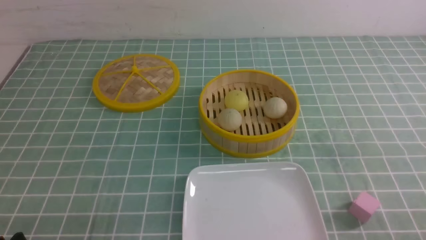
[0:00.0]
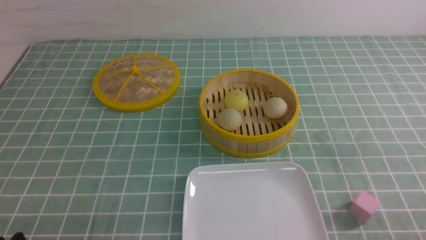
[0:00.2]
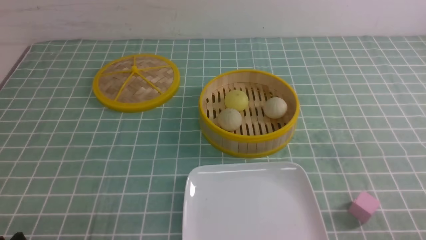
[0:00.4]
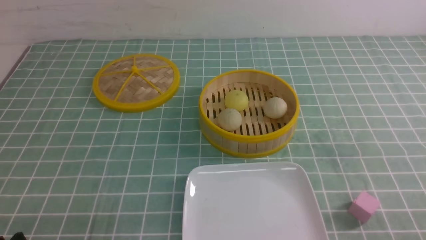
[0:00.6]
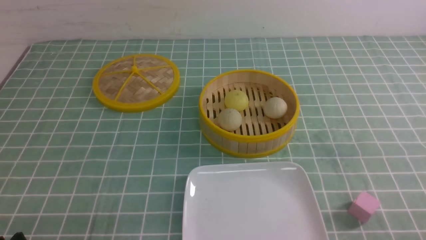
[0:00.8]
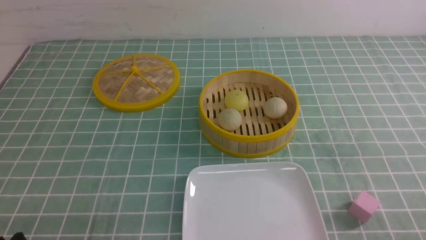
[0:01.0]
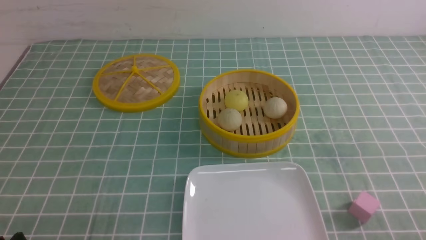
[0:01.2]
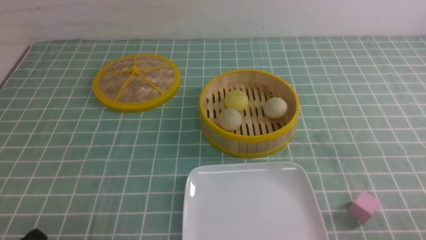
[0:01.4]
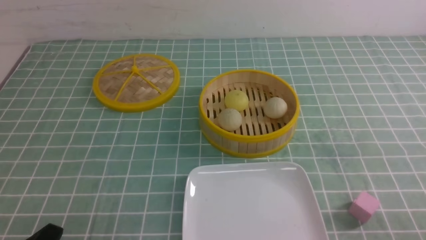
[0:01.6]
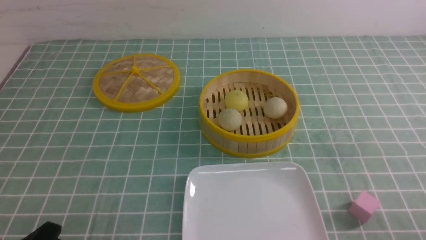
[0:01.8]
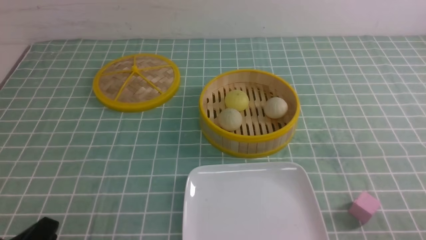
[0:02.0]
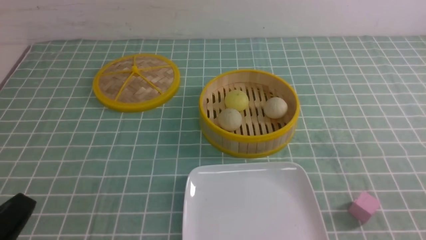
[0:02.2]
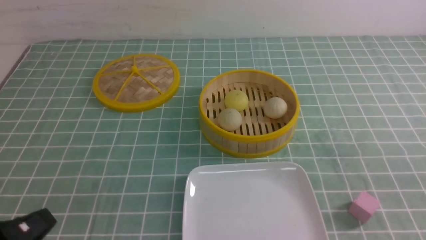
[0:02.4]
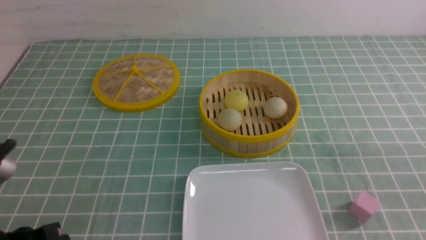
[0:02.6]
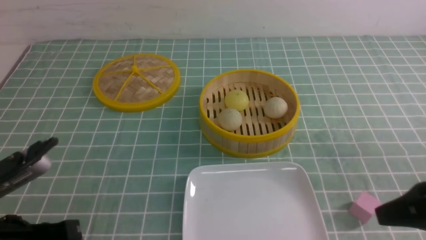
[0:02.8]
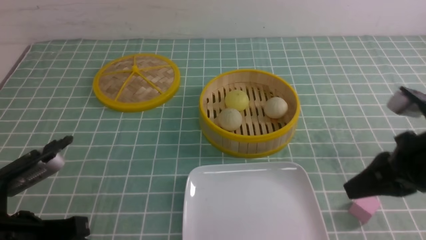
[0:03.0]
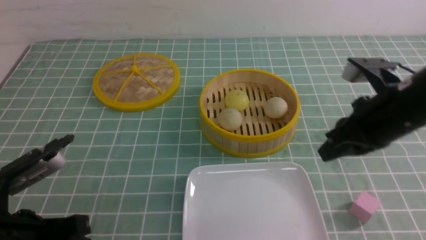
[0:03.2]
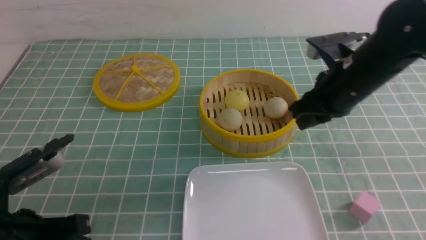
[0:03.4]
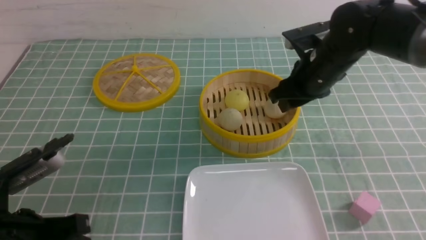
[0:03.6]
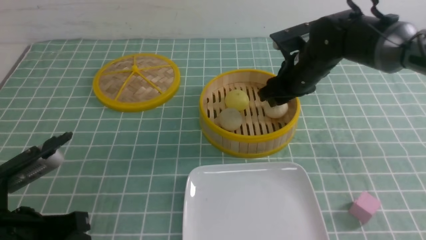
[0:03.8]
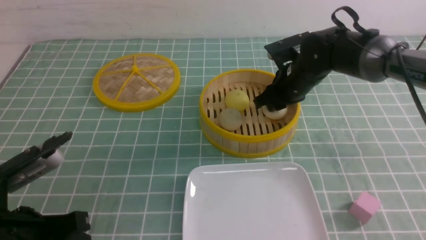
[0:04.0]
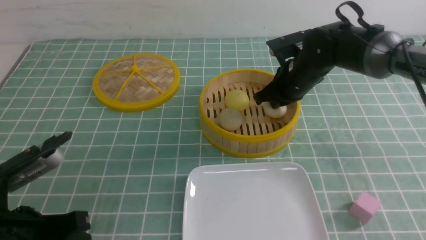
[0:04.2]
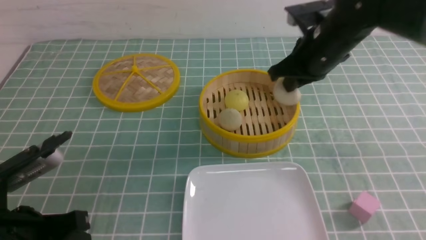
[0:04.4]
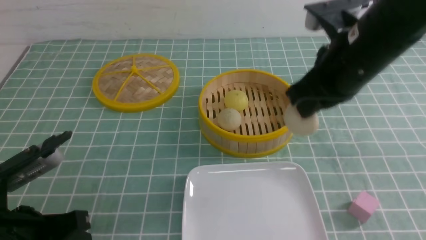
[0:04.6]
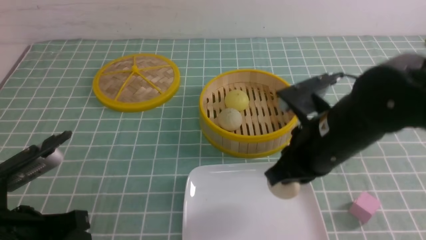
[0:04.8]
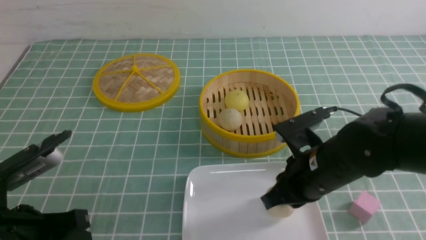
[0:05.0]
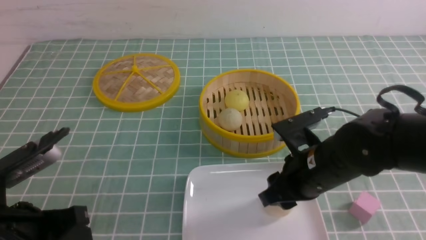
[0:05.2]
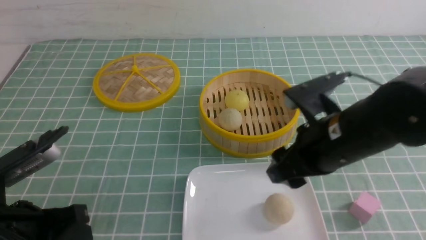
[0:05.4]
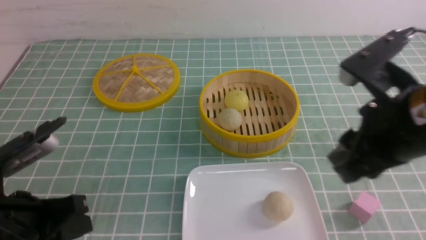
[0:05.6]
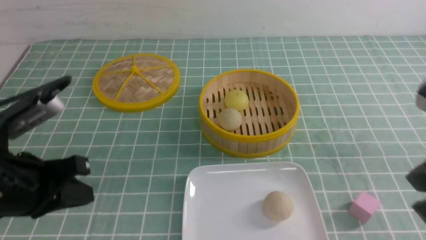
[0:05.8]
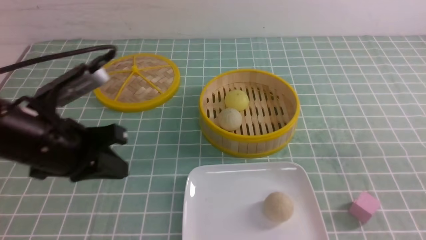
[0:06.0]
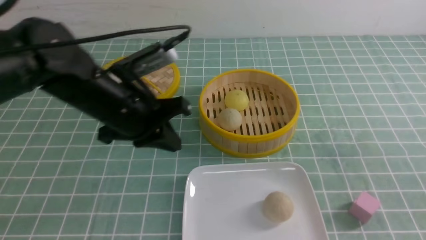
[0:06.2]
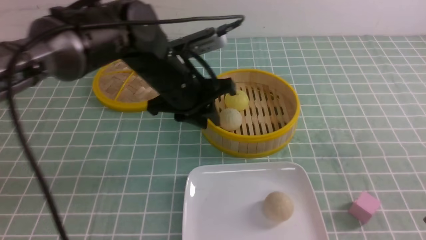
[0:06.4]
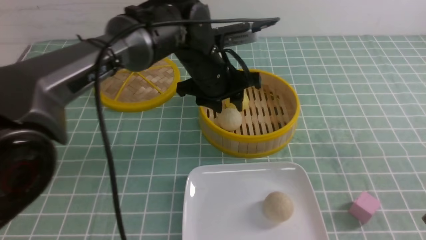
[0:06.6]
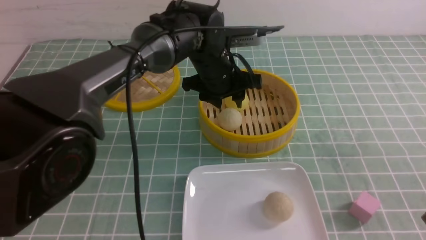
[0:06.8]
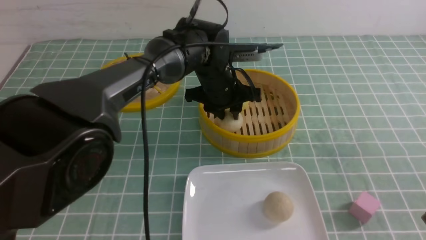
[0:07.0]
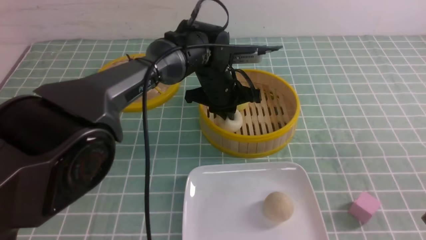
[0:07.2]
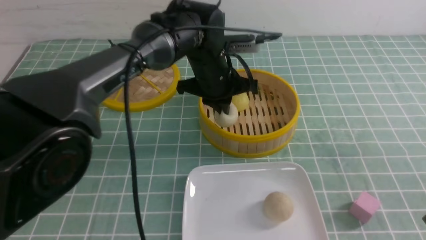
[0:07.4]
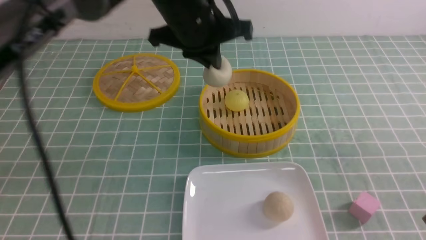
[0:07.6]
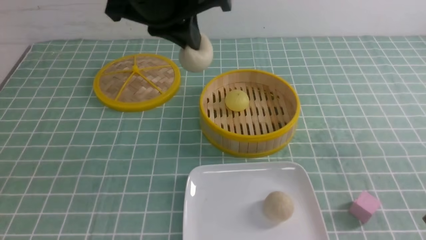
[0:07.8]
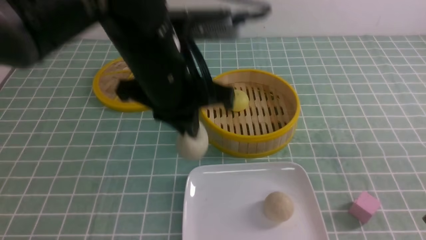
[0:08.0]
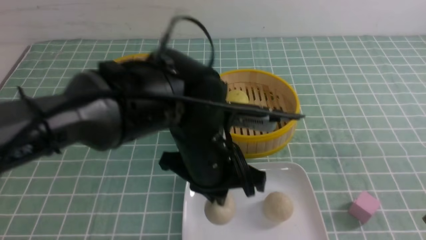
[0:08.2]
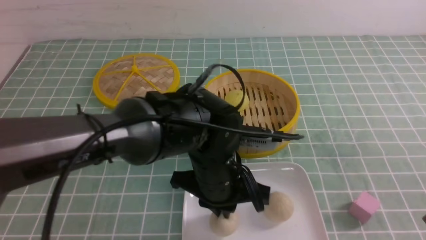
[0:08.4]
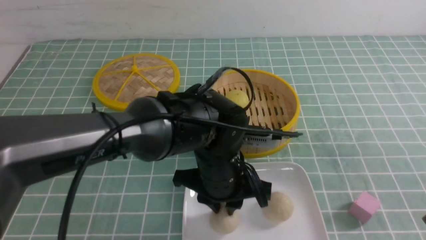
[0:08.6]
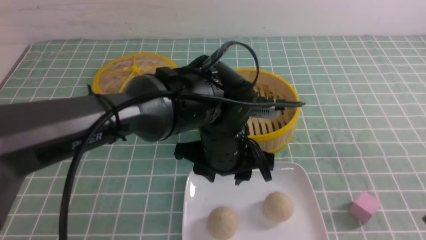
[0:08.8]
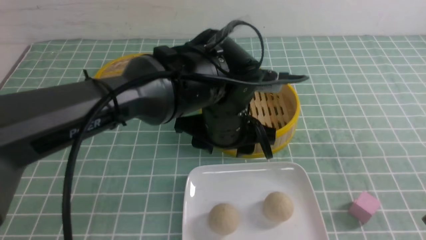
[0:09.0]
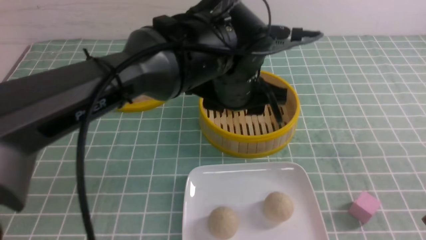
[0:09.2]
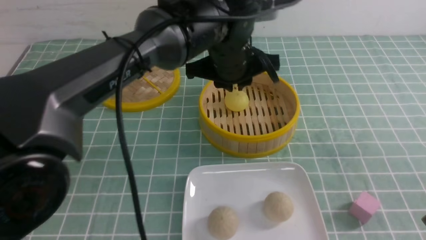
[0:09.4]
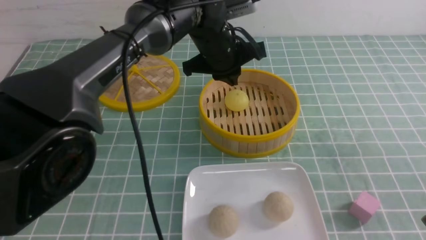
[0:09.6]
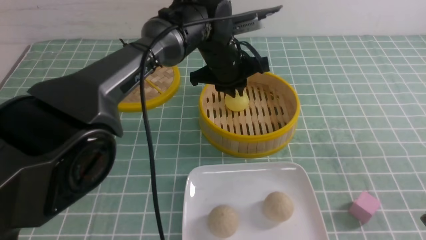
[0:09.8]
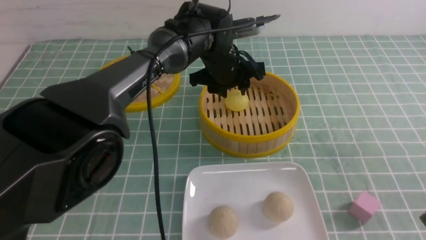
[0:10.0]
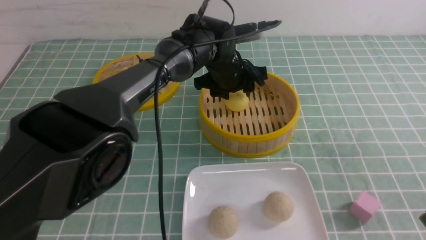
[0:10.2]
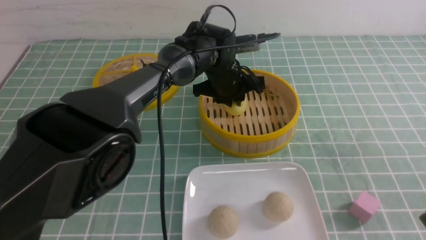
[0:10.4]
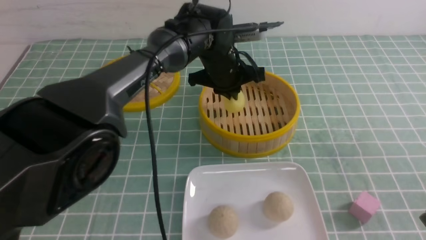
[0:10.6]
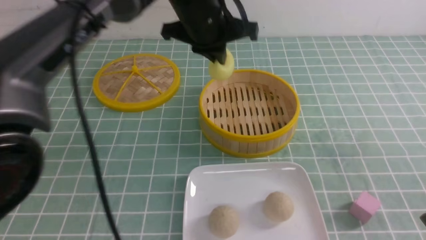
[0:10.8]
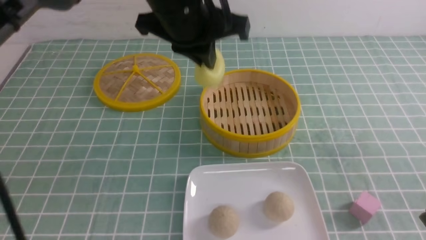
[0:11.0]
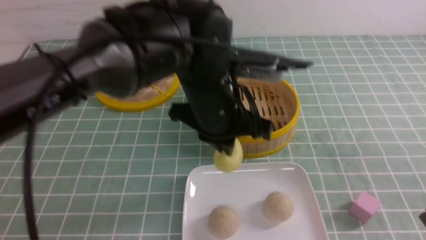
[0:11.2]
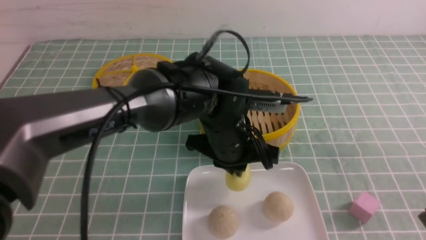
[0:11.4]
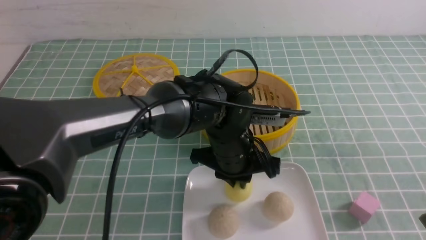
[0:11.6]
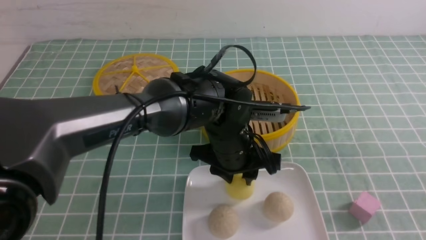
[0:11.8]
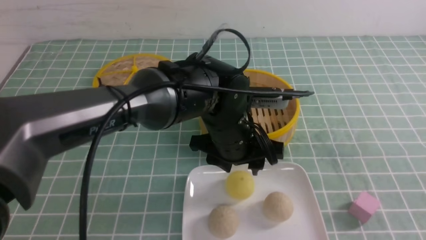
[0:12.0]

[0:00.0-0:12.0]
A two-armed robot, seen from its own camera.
Step, 0:00.0 to 0:04.2: use the right arm to grab the steamed stuffed bun that is closest to it.
Step, 0:04.4 to 0:05.4: use the right arm to put the steamed stuffed bun into the plate.
Step, 0:05.6 to 0:07.2: use the left arm to grab the steamed stuffed bun that is closest to it.
Step, 0:07.4 to 0:08.6: use the left arm to put the steamed stuffed bun into the plate.
Step, 0:08.8 to 0:10.4: use the left arm to grab the steamed stuffed bun that is closest to it.
Step, 0:10.6 to 0:11.8: use the left arm to put the steamed stuffed bun into the plate.
0:01.6 to 0:03.0: The right gripper is displaced forward, upward and to the left by approximately 20 cm, and closes up. Meanwhile the left gripper goes approximately 10 cm forward and upward, and closes up.
0:03.0 to 0:04.4: The right gripper goes approximately 20 cm forward and to the left, and opens and closes again.
0:04.4 to 0:06.0: The left gripper moves forward and upward, some 10 cm. Meanwhile the right gripper shifts about 25 cm backward and to the right, and opens and closes again.
0:06.0 to 0:07.6: The left gripper is displaced to the right, forward and upward by some 20 cm, and opens, then closes once more.
0:07.6 to 0:09.0: The left gripper travels downward, to the right and backward by some 15 cm, and opens up.
0:09.0 to 0:10.4: The left gripper travels forward by approximately 15 cm, and closes its fingers.
0:10.4 to 0:12.0: The right gripper goes some 5 cm backward and upward. Meanwhile the left gripper heads backward, covering some 15 cm, and opens up.

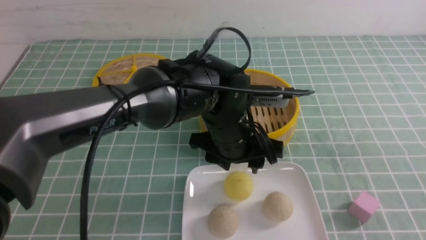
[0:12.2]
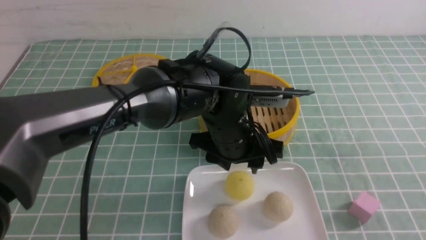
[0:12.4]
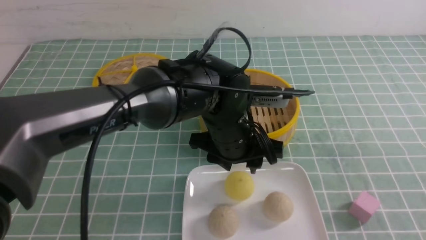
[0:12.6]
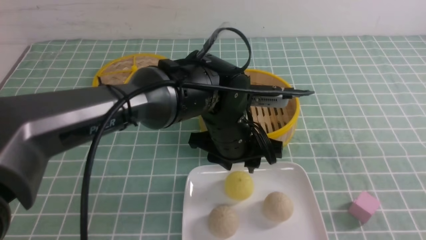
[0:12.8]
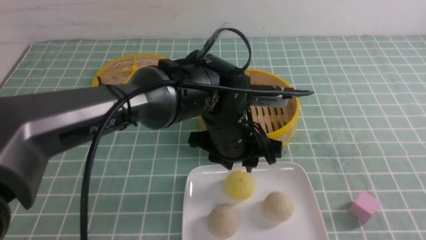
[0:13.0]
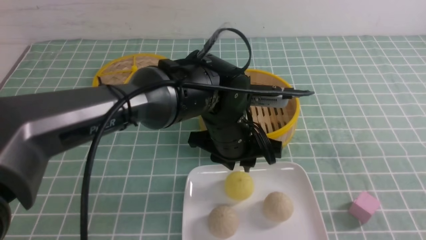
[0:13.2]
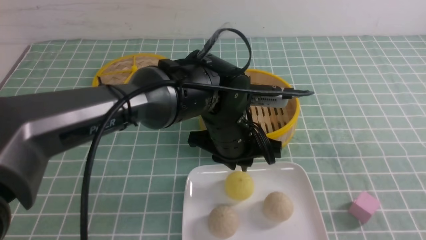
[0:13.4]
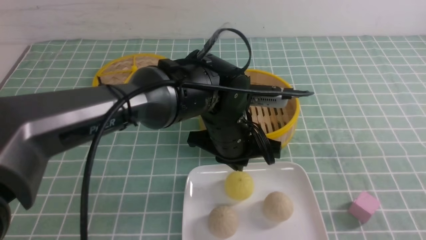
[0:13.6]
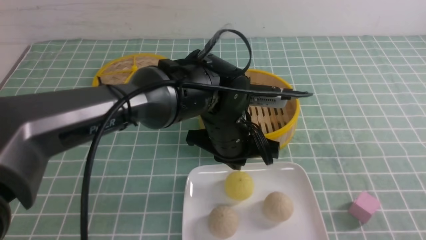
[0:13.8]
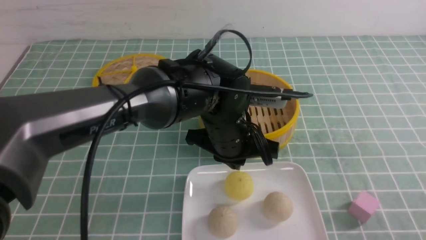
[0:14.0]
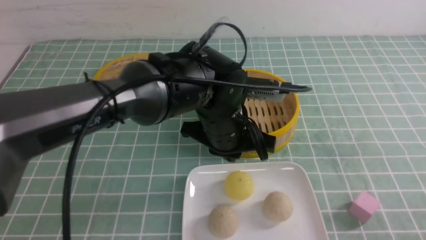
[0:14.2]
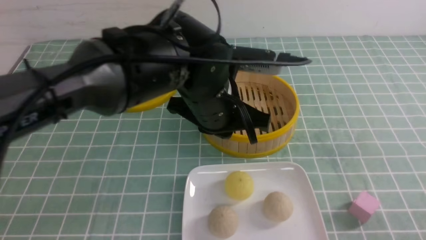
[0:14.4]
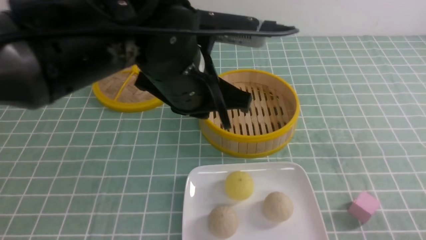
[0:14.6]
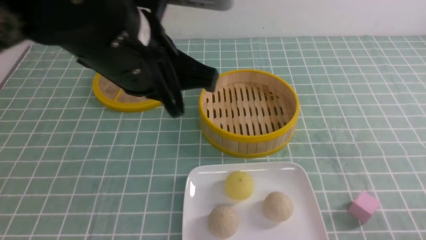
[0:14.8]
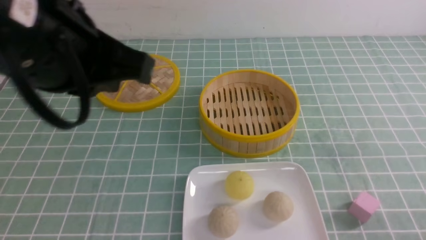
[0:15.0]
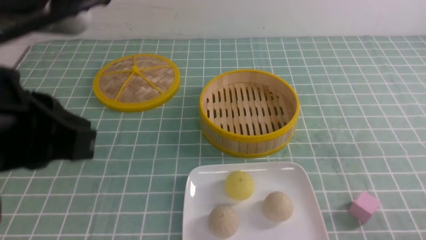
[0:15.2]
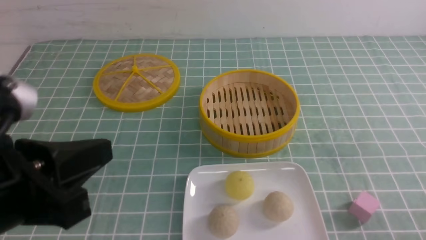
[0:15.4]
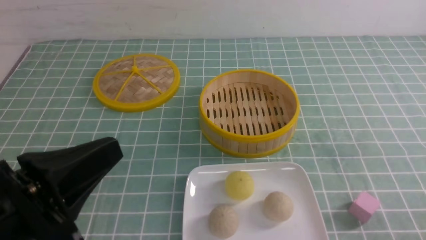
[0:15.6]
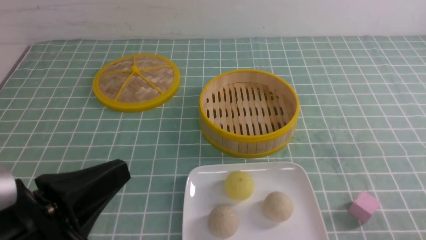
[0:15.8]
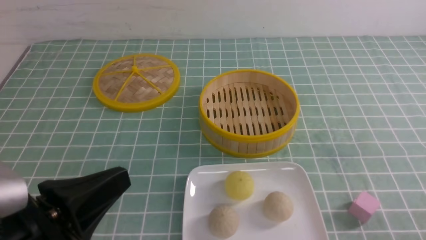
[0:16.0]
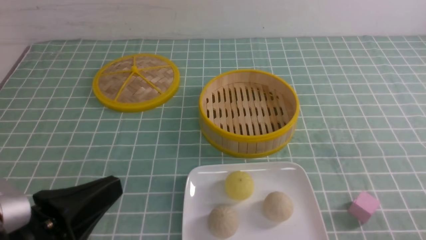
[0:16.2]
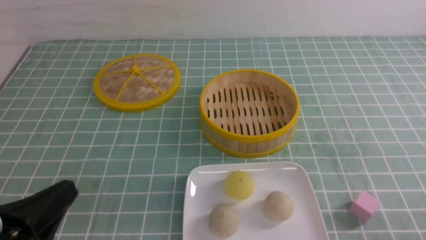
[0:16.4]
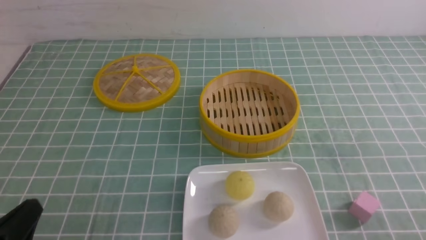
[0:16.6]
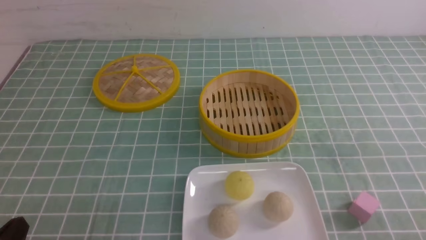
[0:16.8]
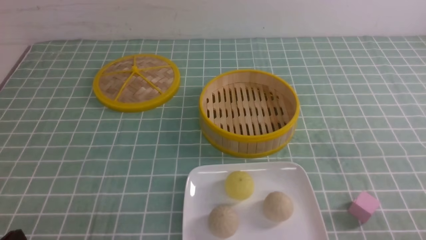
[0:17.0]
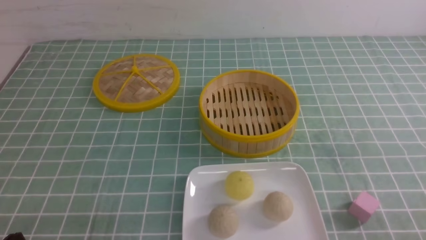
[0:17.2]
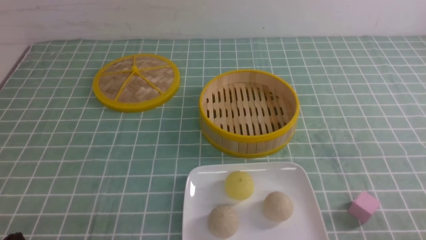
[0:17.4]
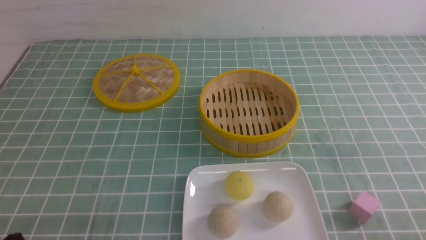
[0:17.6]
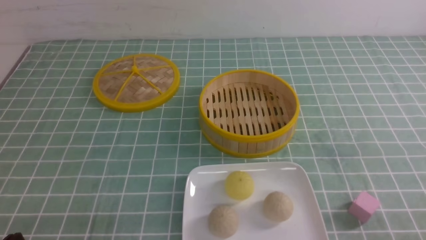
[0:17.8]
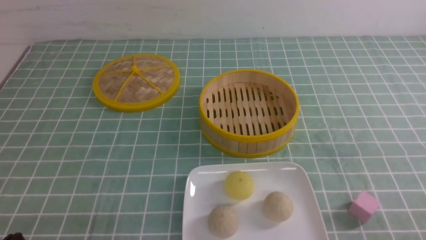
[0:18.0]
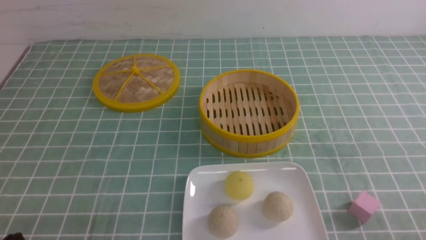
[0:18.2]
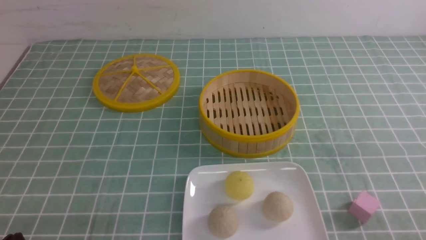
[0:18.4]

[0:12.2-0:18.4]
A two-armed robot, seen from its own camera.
0:12.2 to 0:13.8: The right gripper travels downward by approximately 10 cm; the left gripper closes its fingers.
0:13.8 to 0:15.4: The right gripper moves downward, roughly 10 cm; the left gripper moves to the left, backward and upward, roughly 30 cm.
0:15.4 to 0:16.8: The left gripper heads downward and to the left, covering approximately 20 cm.
